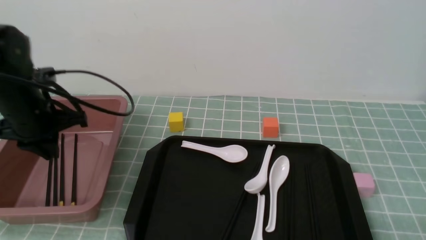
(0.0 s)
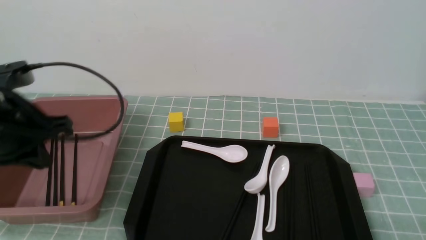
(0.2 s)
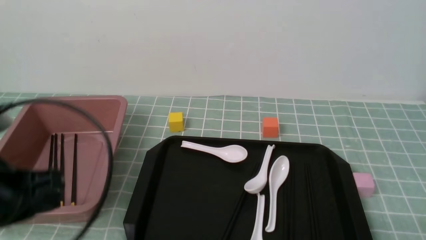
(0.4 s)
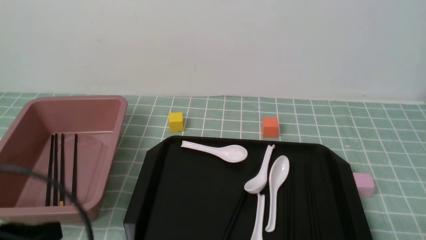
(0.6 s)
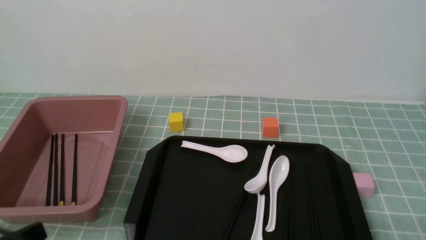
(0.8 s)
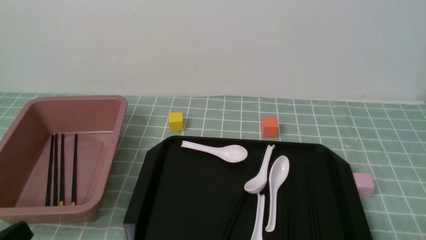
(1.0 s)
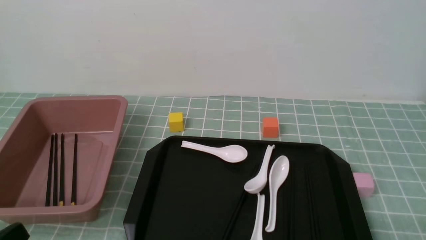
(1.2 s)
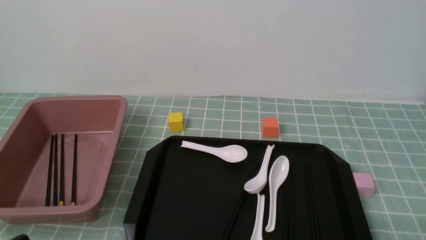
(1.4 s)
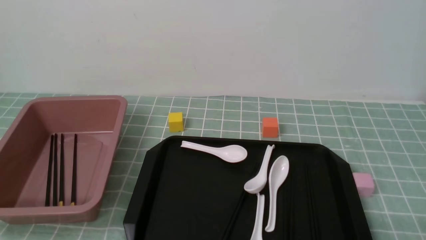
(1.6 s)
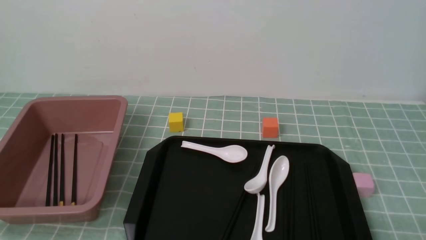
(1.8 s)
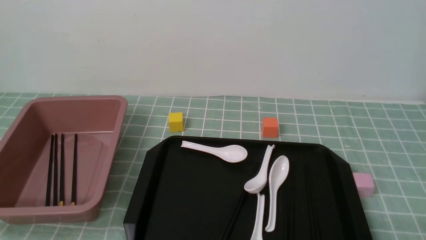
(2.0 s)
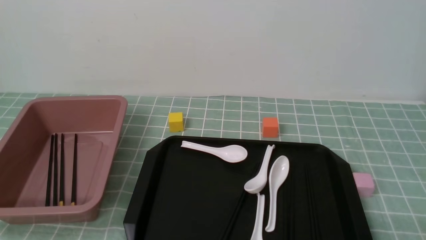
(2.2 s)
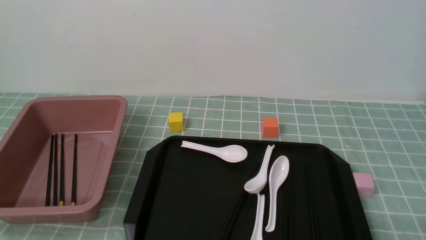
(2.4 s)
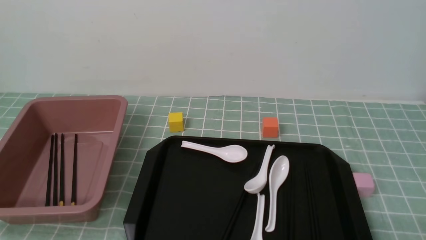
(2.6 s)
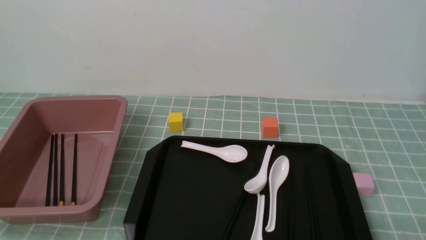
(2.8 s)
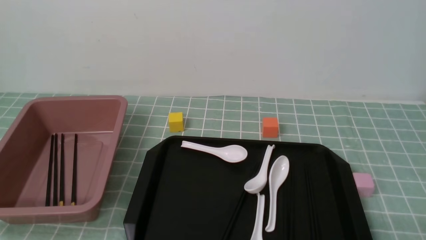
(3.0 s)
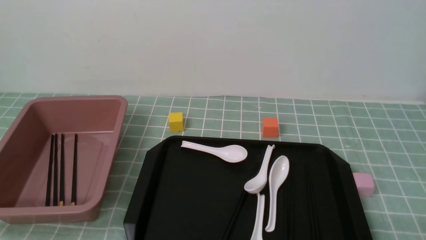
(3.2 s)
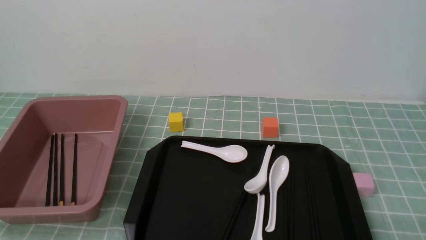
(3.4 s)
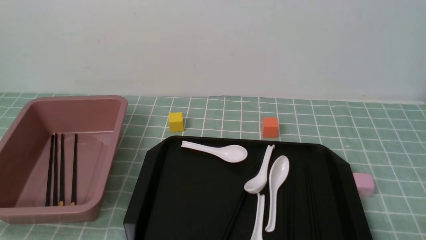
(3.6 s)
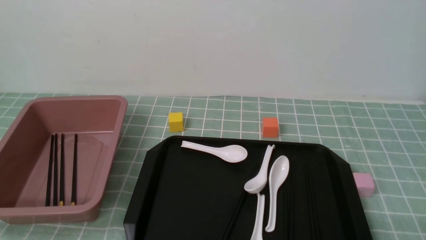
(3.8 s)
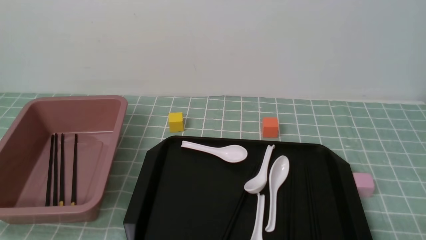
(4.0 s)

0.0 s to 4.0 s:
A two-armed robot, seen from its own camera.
0.0 to 1.4 s: The left gripper is displaced backward by approximately 25 cm.
2.6 to 4.0 s: The two grippers keep their place.
